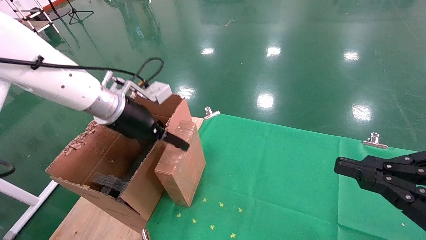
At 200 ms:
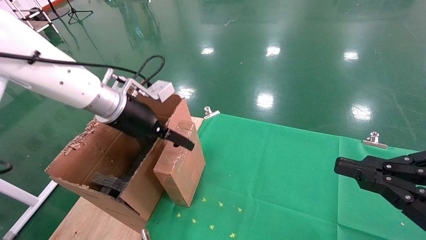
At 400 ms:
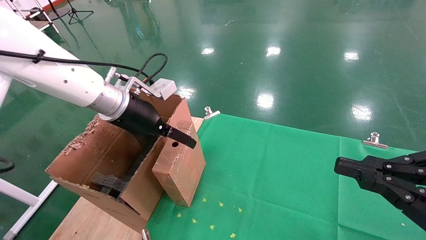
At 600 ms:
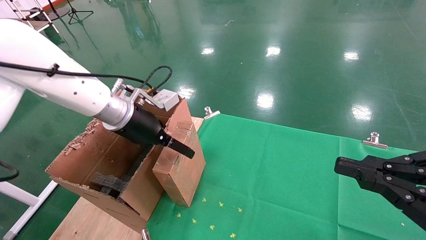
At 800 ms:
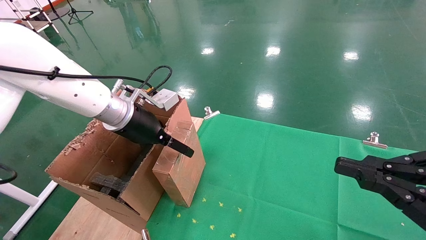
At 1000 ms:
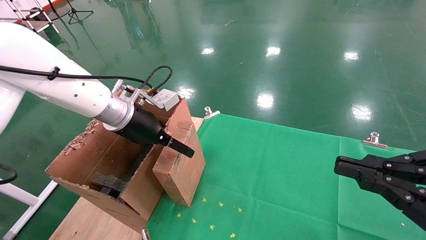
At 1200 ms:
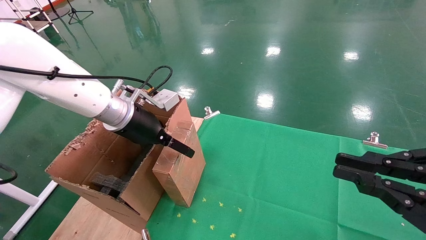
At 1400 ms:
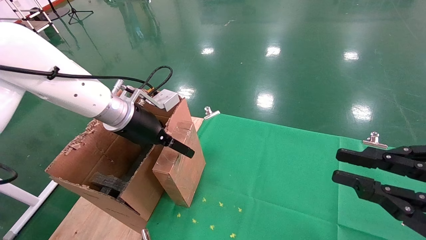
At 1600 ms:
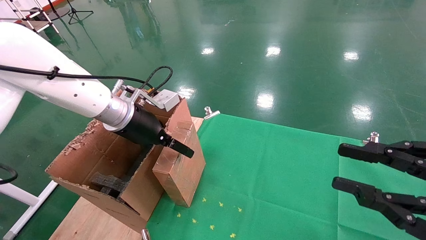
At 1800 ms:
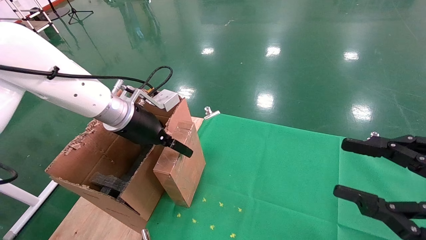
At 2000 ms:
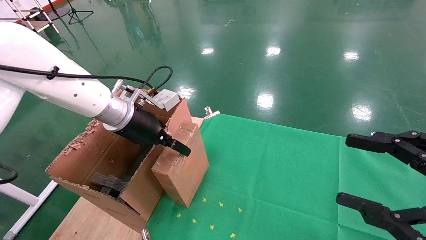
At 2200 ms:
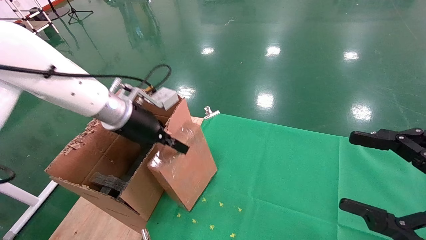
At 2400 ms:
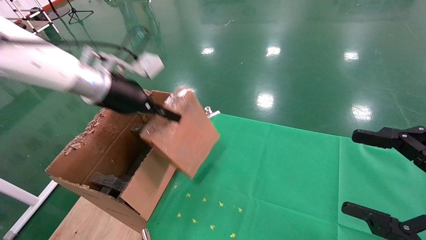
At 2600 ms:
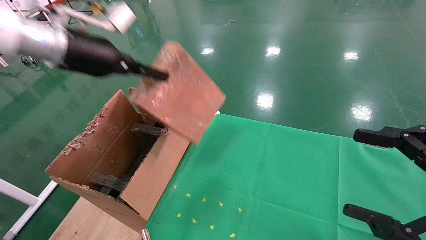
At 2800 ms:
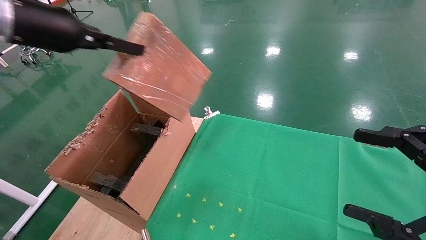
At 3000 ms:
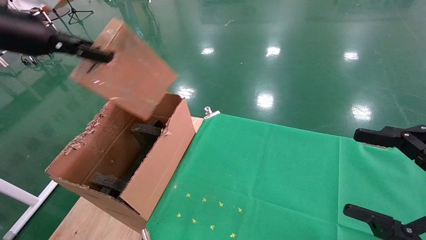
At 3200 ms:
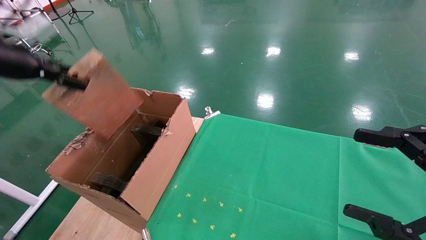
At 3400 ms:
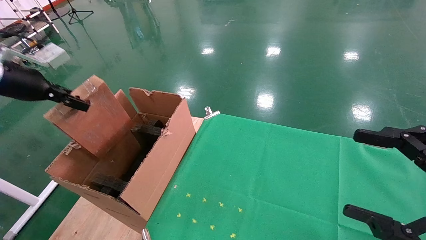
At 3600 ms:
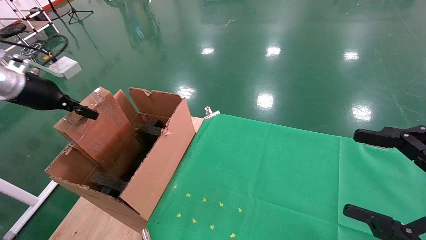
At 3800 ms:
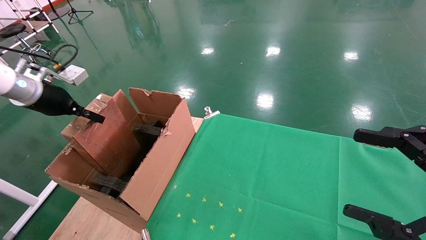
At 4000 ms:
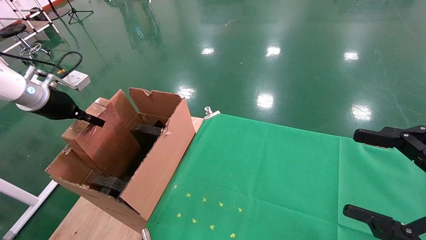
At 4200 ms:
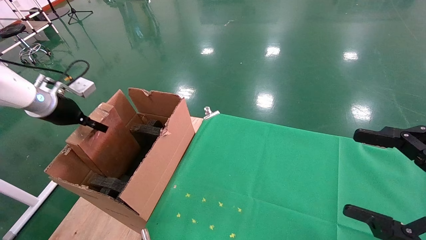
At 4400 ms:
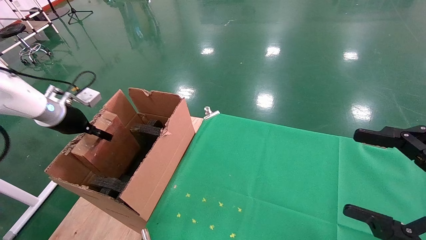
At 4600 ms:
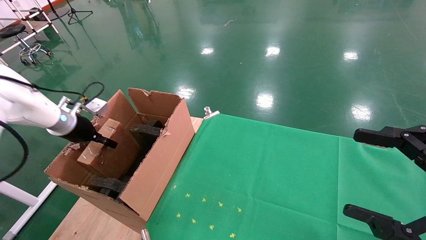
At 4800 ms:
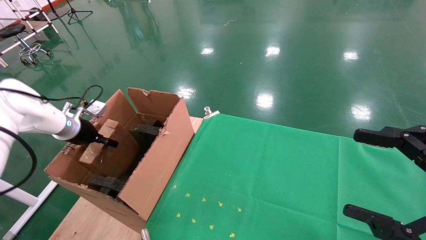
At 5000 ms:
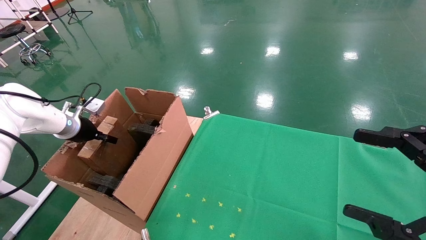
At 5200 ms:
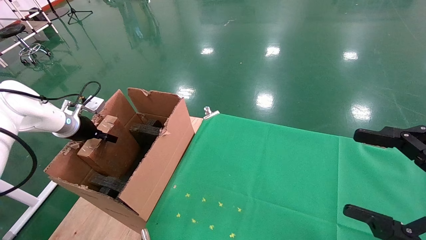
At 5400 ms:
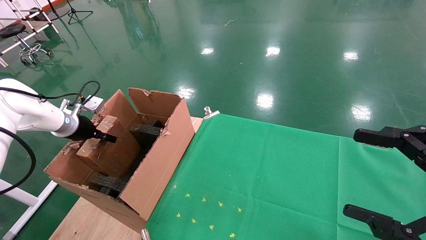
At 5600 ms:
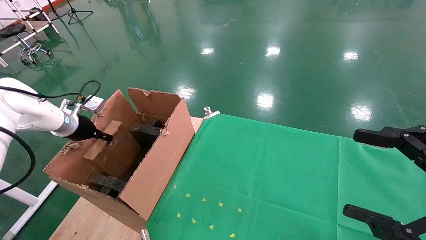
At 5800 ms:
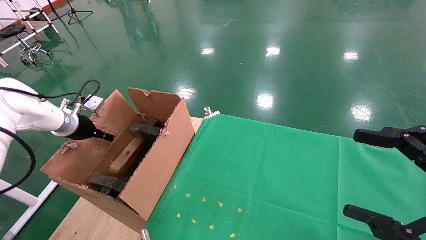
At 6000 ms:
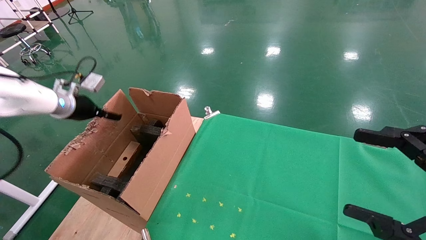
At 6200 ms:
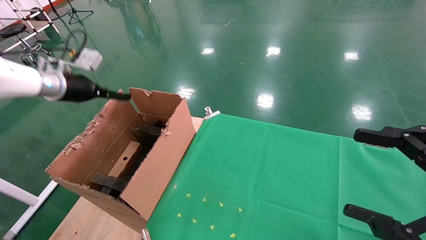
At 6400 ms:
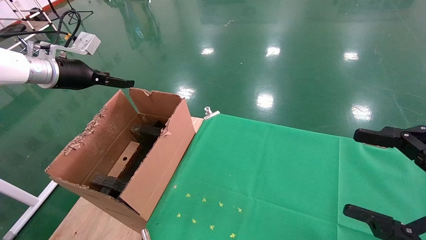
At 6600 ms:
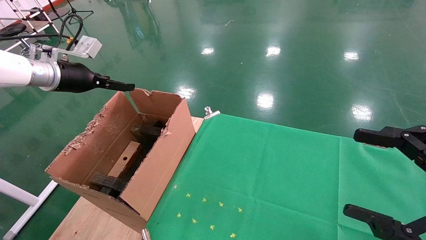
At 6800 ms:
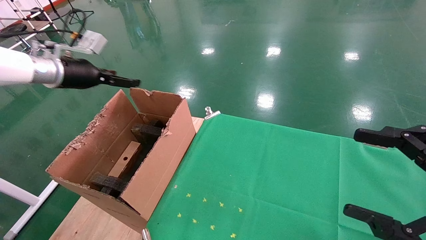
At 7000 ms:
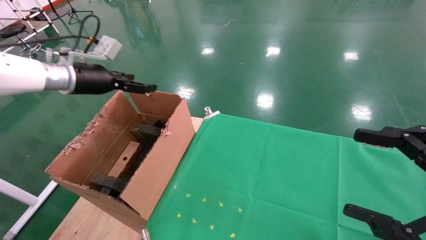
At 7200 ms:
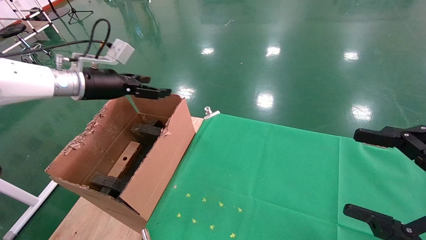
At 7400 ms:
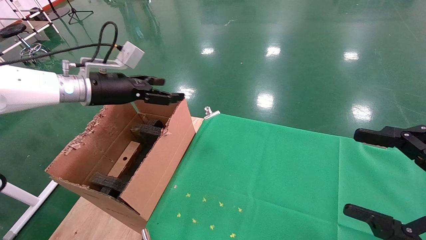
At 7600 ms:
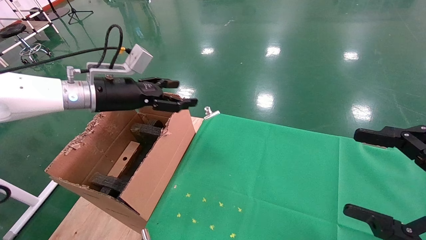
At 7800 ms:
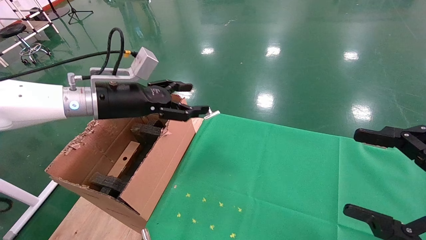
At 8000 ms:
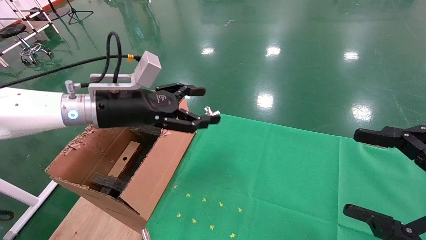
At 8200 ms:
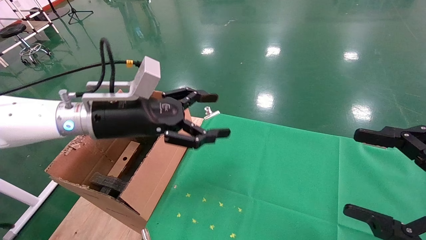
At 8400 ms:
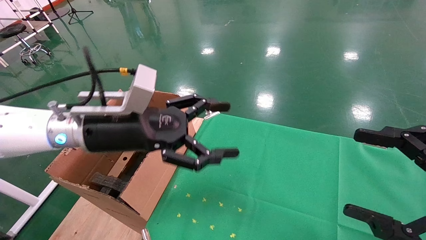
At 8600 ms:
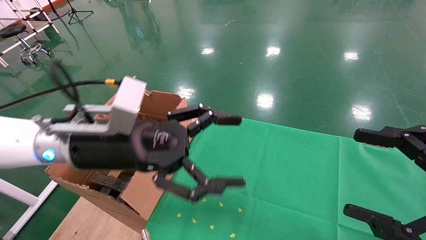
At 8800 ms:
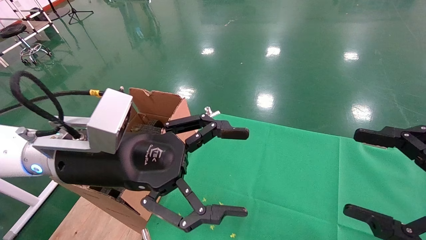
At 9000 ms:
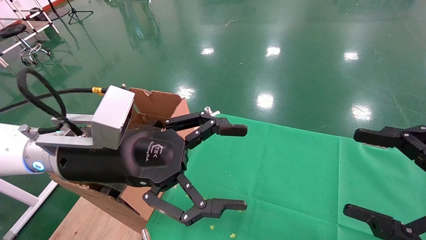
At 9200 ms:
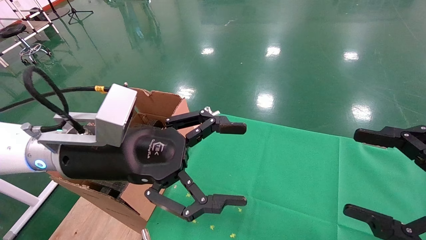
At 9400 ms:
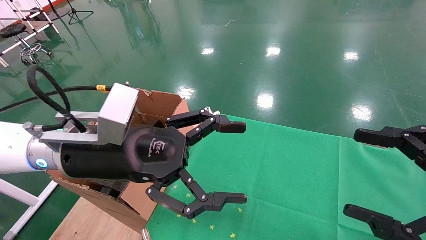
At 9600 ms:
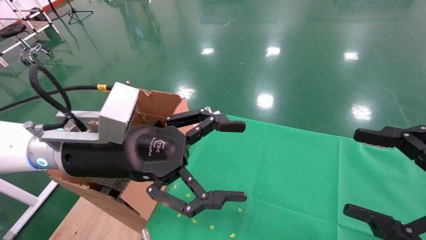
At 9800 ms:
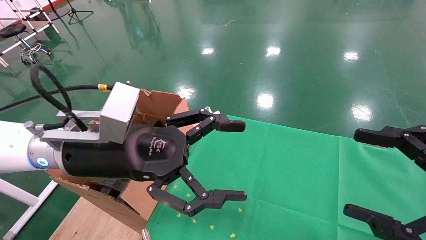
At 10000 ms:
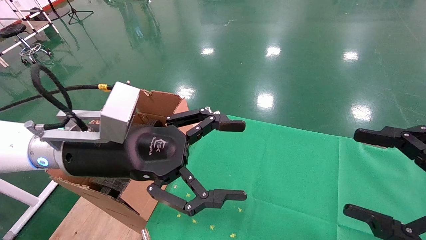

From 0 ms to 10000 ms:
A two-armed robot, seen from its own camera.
Task of the whole recording: using a robotic arm to pick up a cardboard box and palace it the carton.
Step, from 0 ms to 2000 ms: Pick up the mouse and the power cord paper box.
Step, from 2200 ms to 6200 ms: Place the mouse and the power cord paper box into the container.
From 0 ms to 1400 ms: The grippers move only a little.
From 1400 ms to 2800 ms: The left gripper goes roughly 20 cm upward and to the left, and closes up. The right gripper opens up.
From 2800 ms to 4200 ms: The left gripper shifts approximately 20 cm downward, to the left and forward.
From 4200 ms to 5800 ms: The left gripper ends up some 5 cm from where it was, and opens up.
From 5800 ms to 7200 ms: The left gripper travels to the right and upward by roughly 15 cm, and opens up.
From 7200 ms to 8600 ms: The left gripper moves to the right and backward, some 20 cm.
From 8600 ms to 10000 ms: The grippers move only a little.

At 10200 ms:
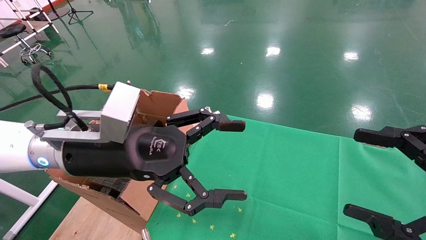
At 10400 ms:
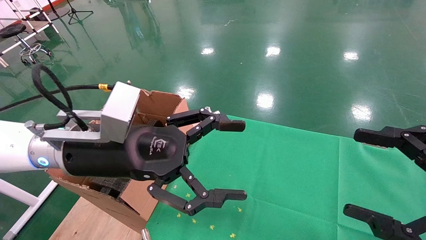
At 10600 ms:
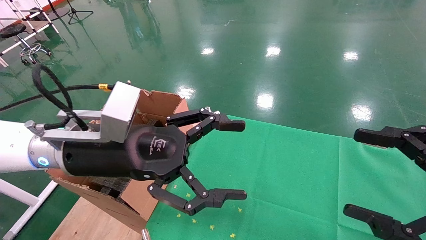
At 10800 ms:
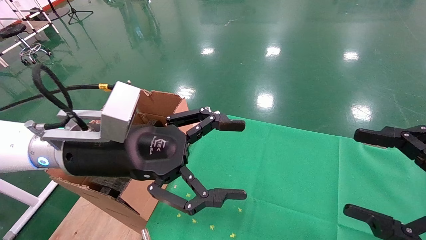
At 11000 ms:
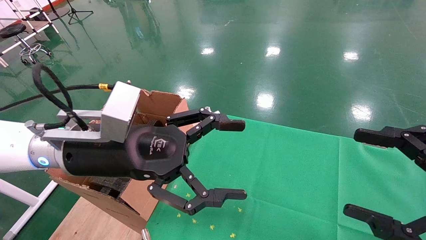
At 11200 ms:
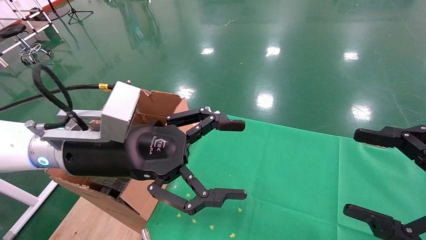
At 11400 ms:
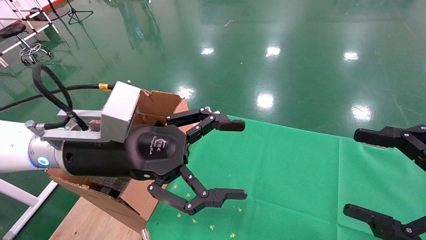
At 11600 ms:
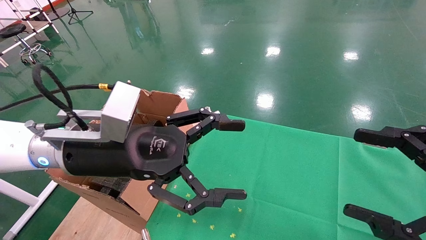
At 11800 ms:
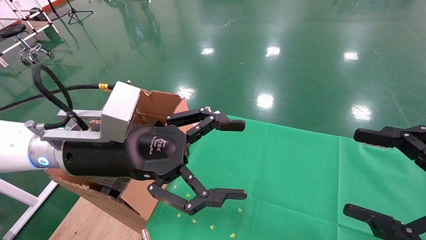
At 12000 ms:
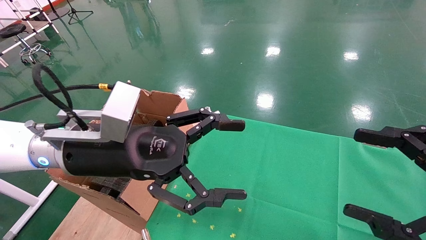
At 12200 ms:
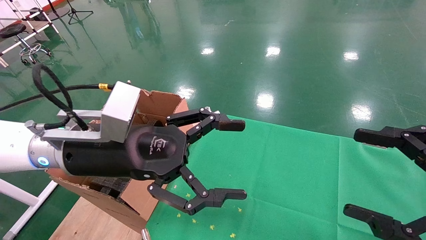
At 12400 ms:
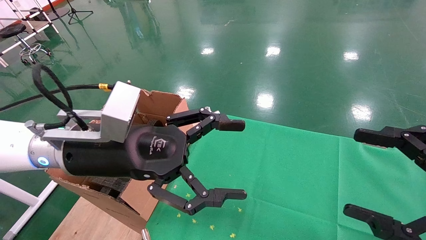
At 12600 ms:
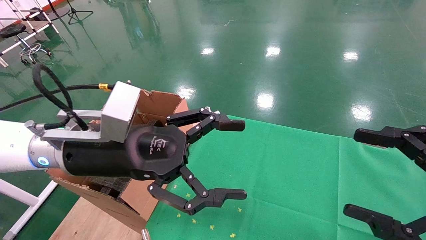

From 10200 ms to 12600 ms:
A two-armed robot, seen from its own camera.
Task of the whole recording: using a robotic arm to pick up a cardboard box and palace it the carton.
From 10200 ms to 12600 ms: The two grippers keep their place.
